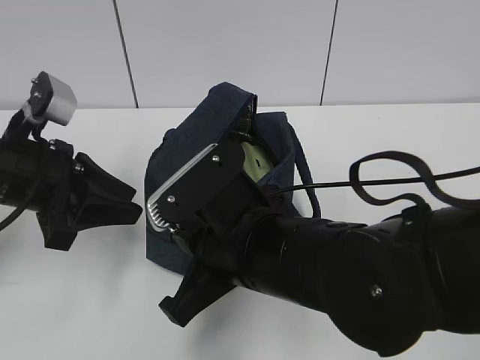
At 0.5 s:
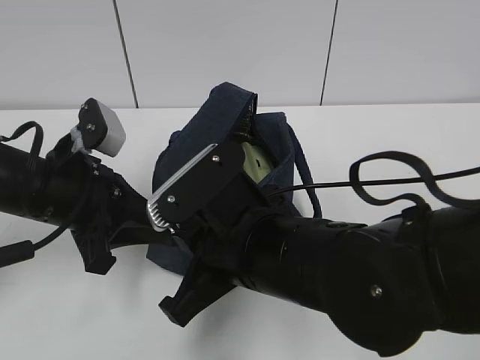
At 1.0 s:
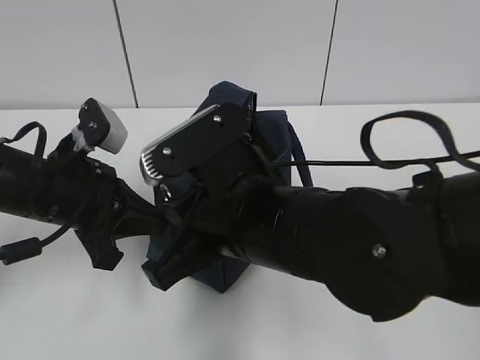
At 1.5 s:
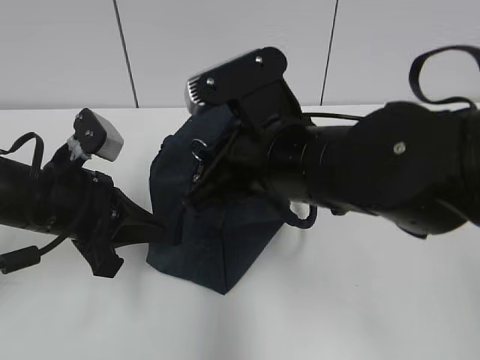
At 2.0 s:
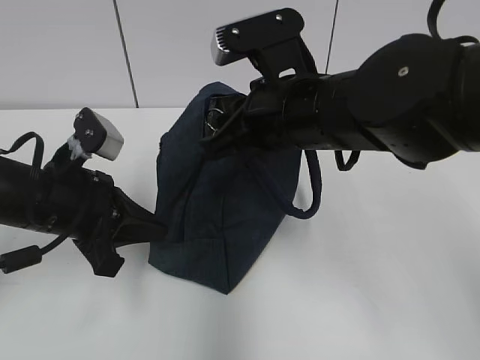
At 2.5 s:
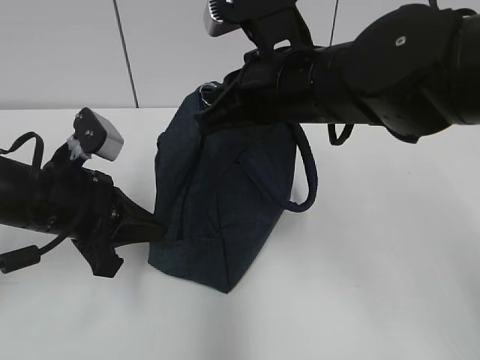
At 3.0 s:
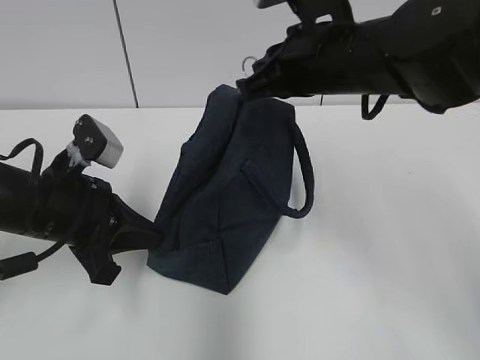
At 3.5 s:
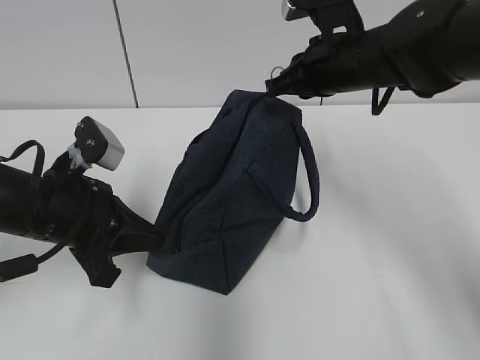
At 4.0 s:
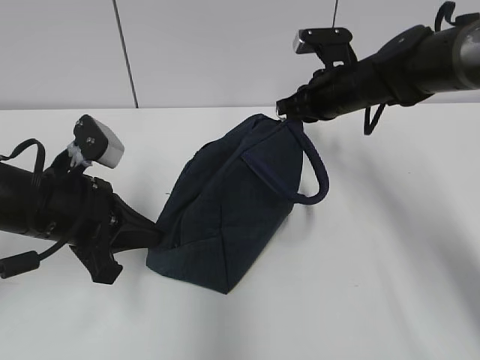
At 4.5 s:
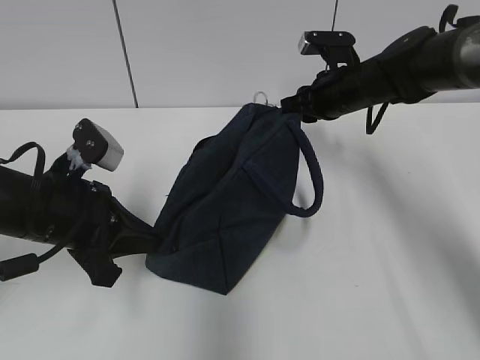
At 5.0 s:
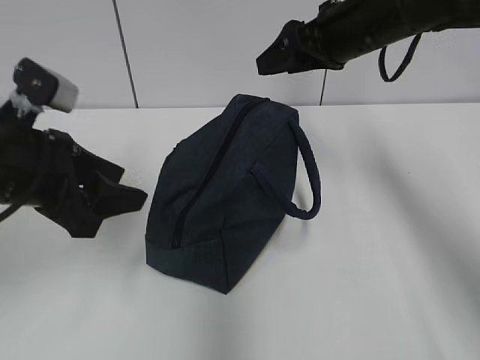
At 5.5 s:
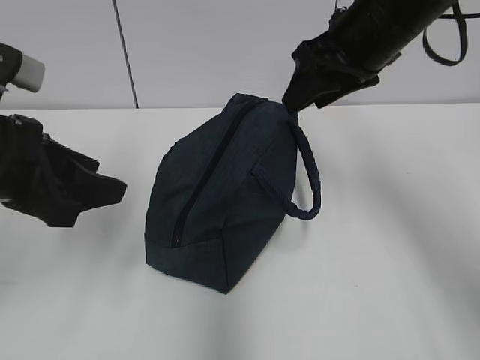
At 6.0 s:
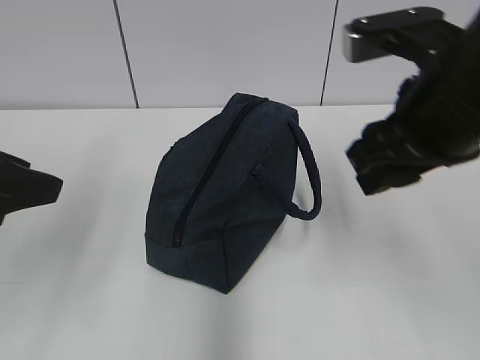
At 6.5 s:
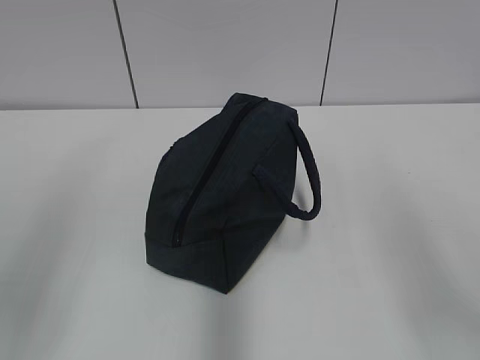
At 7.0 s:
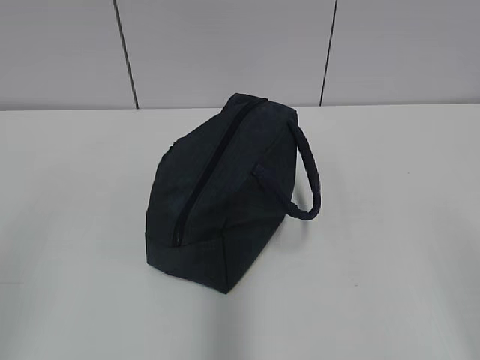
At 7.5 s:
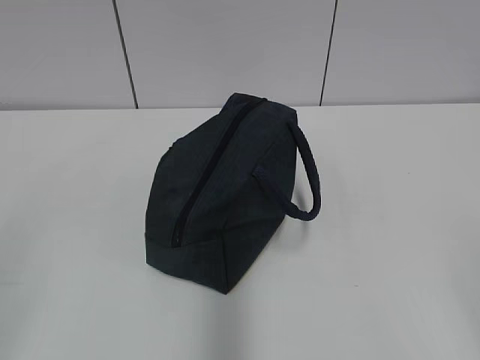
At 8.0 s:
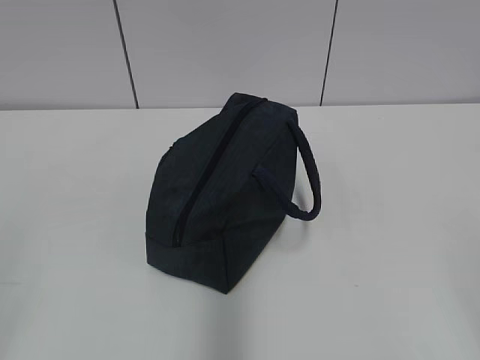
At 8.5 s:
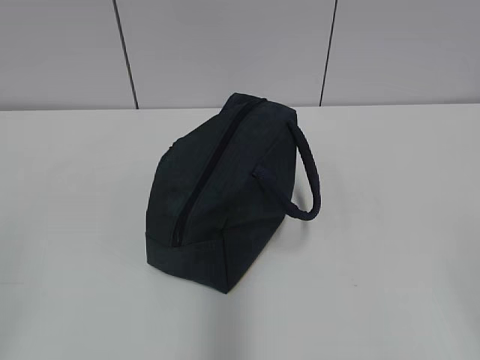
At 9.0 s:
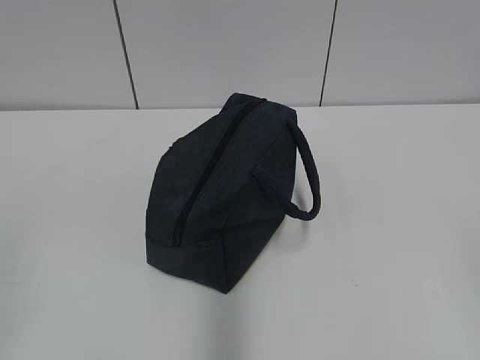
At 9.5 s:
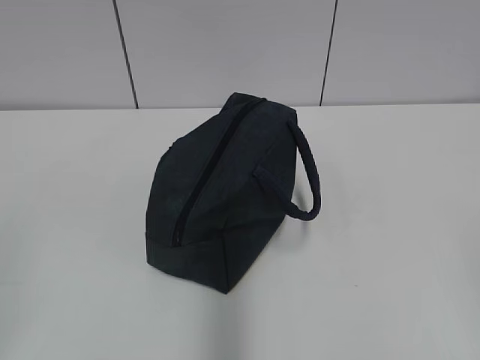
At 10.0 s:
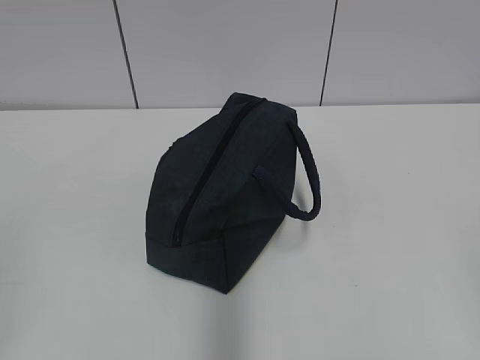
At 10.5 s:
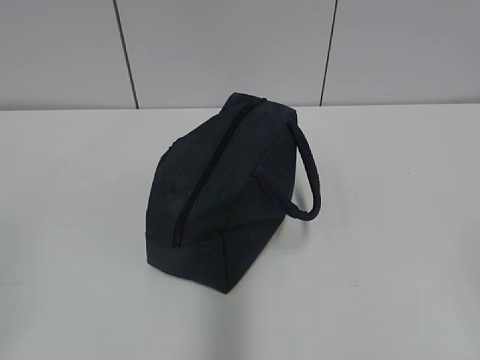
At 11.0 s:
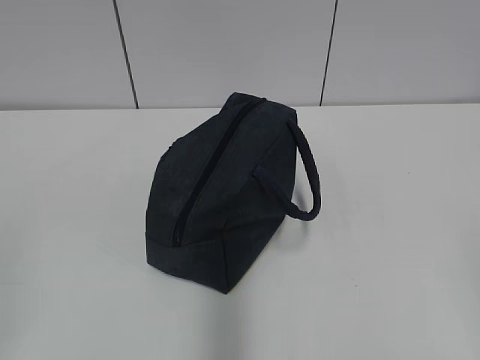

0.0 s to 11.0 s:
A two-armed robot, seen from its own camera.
Step, 1.0 to 4.0 s: Pull the zipper with your right hand.
0.0 to 2.0 s: The right gripper moves forward and upward, approximately 10 cm. Meanwhile the left gripper closes its fingers.
2.0 to 3.5 s: The right gripper travels forward and to the right by about 15 cm.
3.5 to 5.5 s: The grippers both shift upward by about 10 cm. The left gripper opens. The right gripper opens up.
5.5 to 7.5 s: The left gripper shifts roughly 20 cm backward. Meanwhile the right gripper is displaced backward and to the right by approximately 40 cm.
9.0 to 11.0 s: Neither gripper changes place.

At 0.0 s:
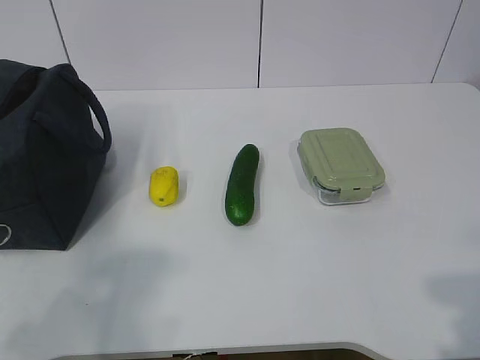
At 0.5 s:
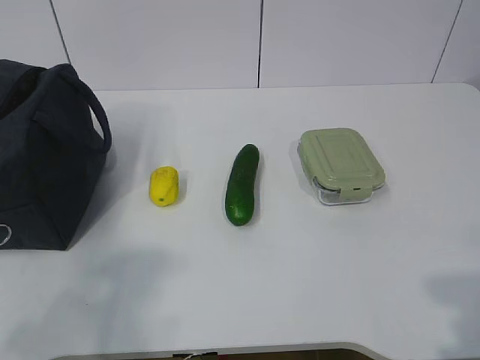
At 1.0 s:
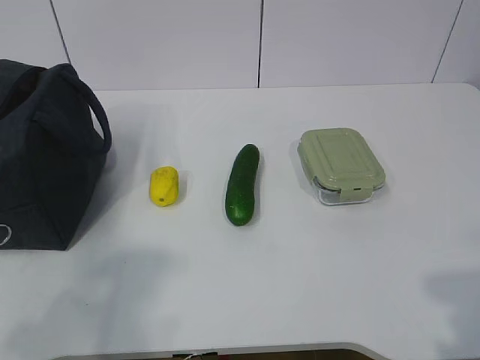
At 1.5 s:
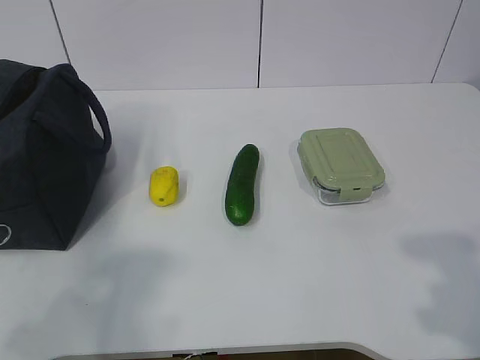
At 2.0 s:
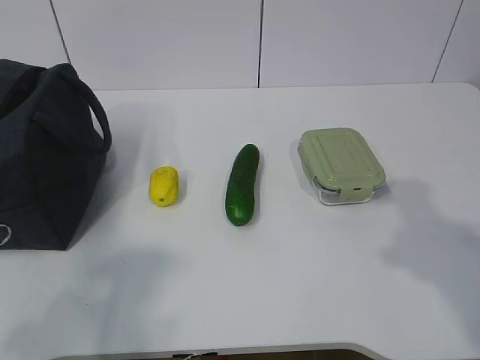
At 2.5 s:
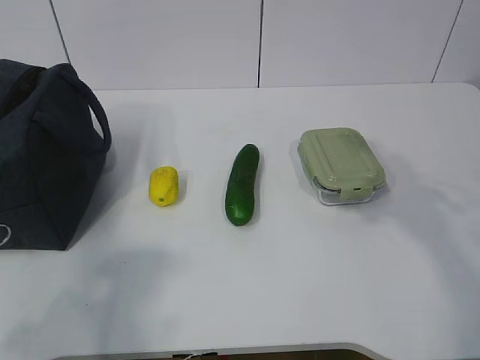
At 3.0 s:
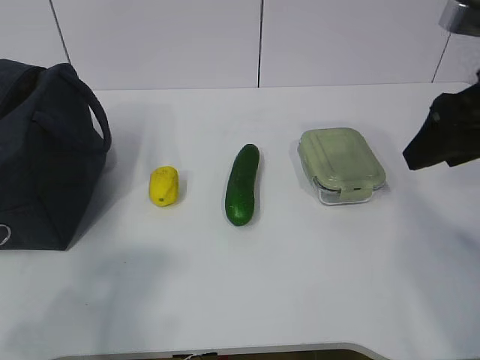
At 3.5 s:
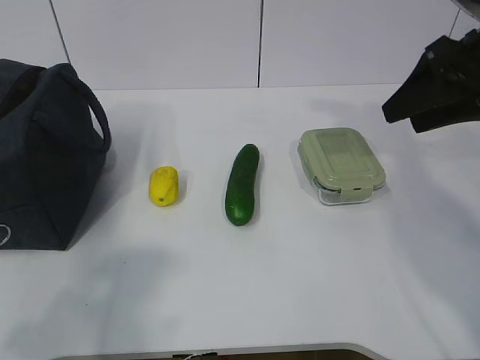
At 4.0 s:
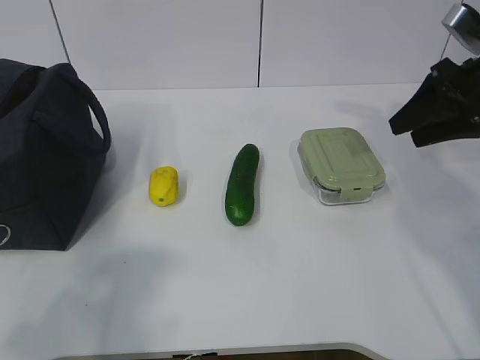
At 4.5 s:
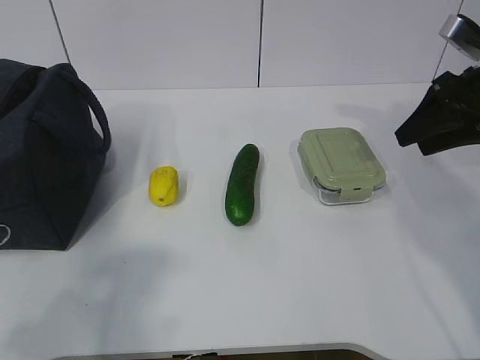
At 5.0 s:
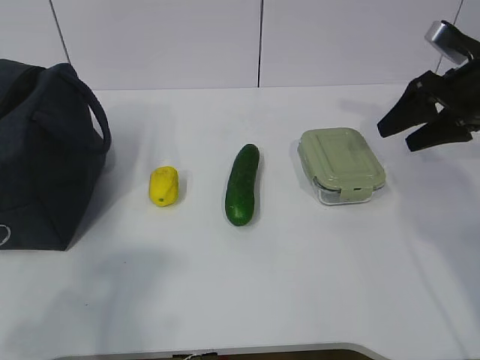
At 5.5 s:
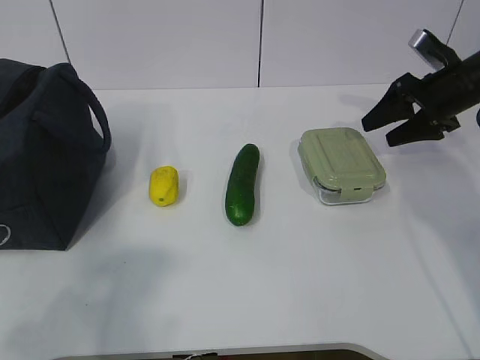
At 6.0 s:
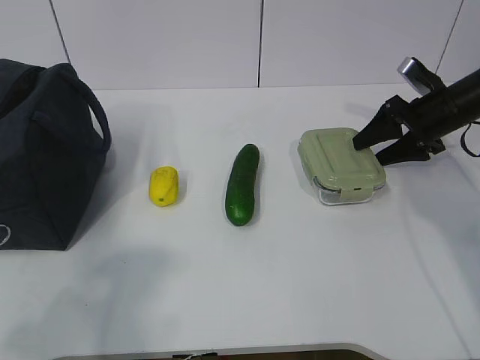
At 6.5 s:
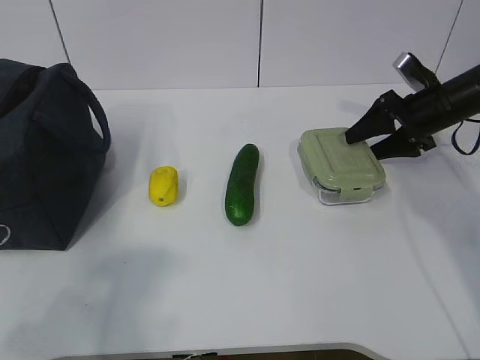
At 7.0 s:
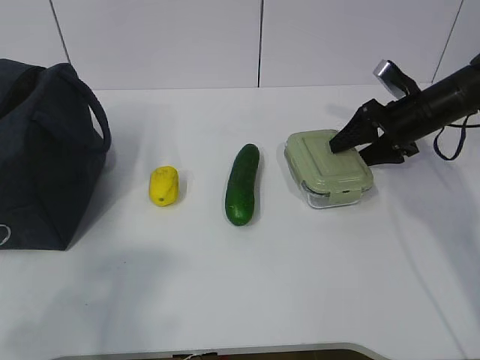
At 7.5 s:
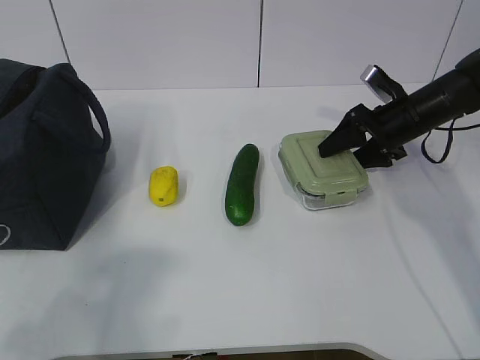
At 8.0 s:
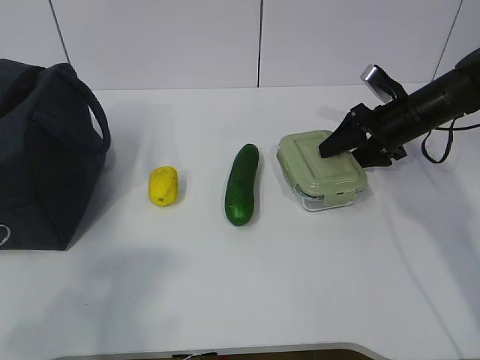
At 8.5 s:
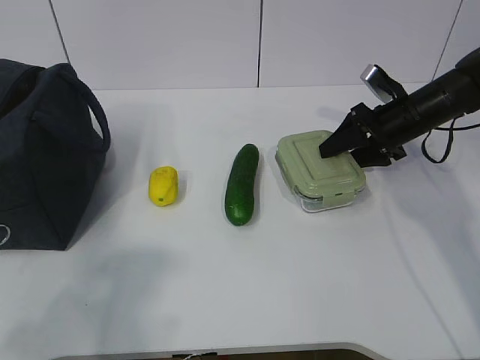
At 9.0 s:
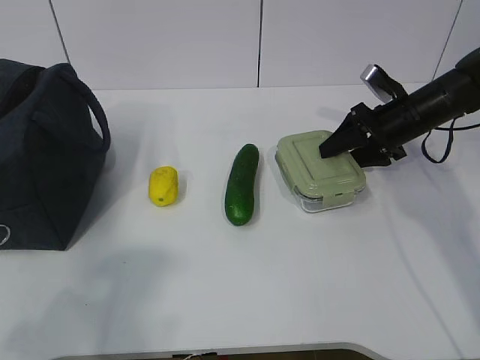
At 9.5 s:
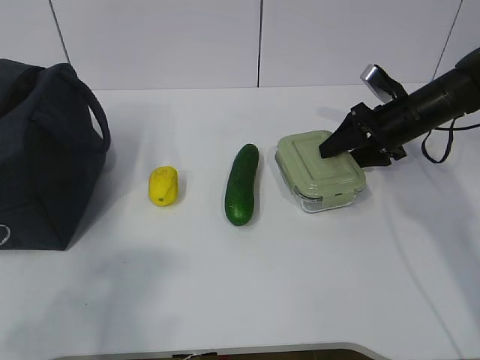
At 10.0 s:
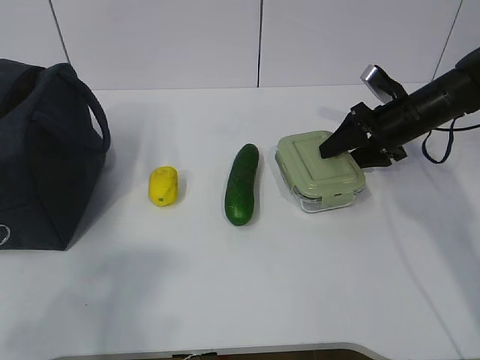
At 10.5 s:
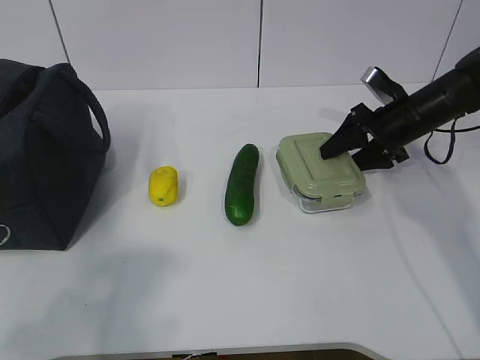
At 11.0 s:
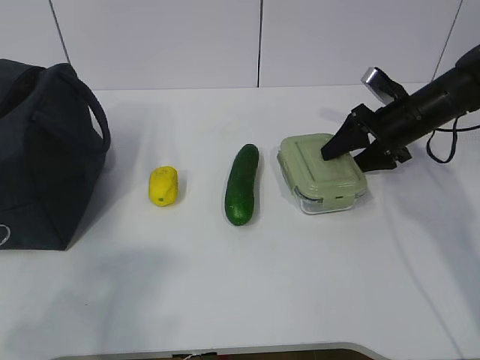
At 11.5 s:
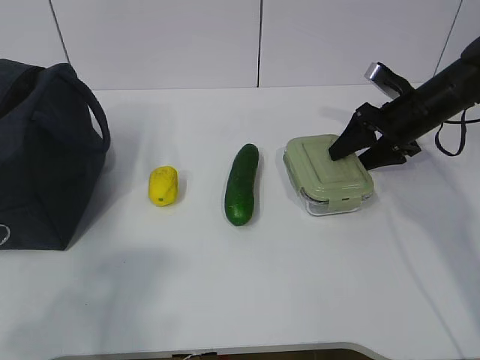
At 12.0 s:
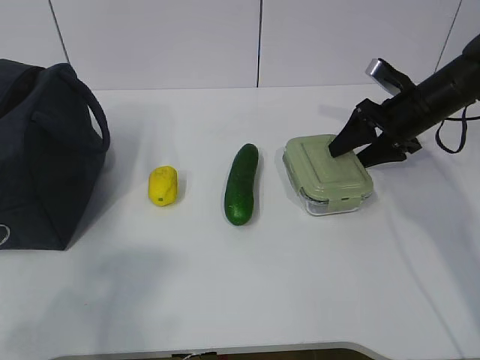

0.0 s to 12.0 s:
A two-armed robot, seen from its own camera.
2.0 to 4.0 s: The right gripper moves forward, about 25 cm.
4.0 to 6.0 s: The right gripper heads downward and forward, covering about 15 cm.
6.0 to 8.0 s: The right gripper ends up some 5 cm from where it was.
8.0 to 10.0 s: Both grippers stay put.
10.0 to 12.0 s: There are only small adjustments of the grippers.

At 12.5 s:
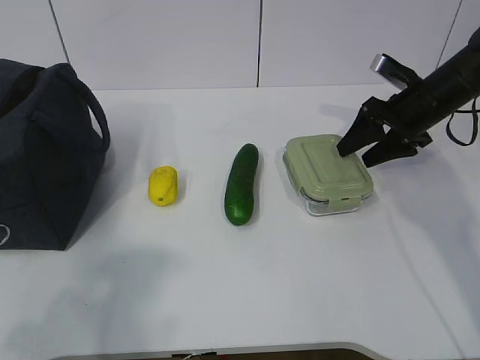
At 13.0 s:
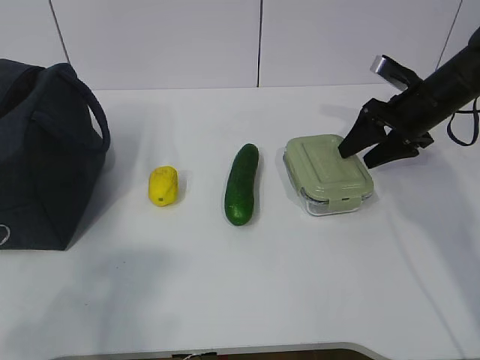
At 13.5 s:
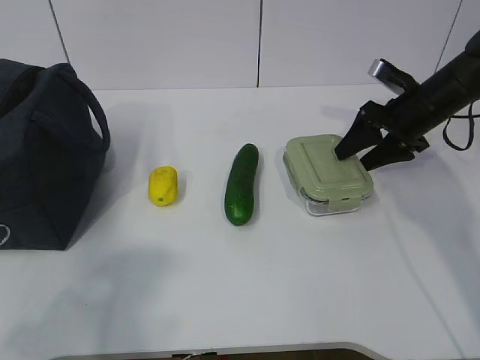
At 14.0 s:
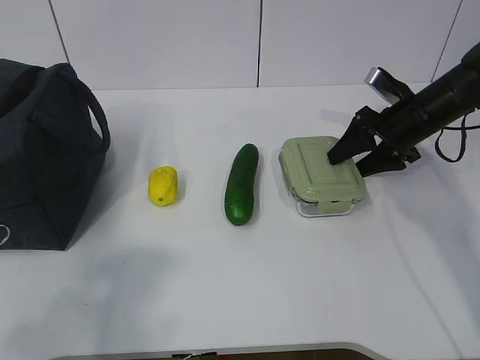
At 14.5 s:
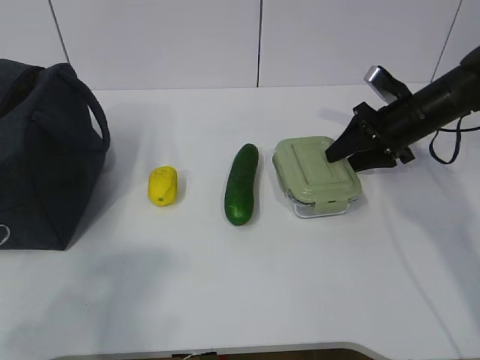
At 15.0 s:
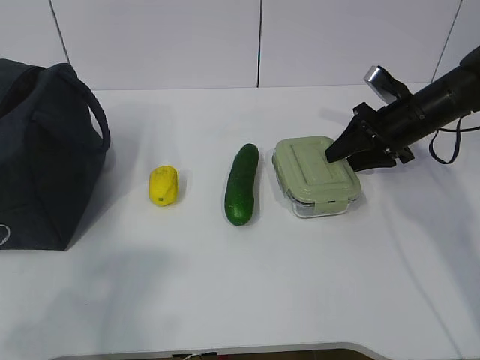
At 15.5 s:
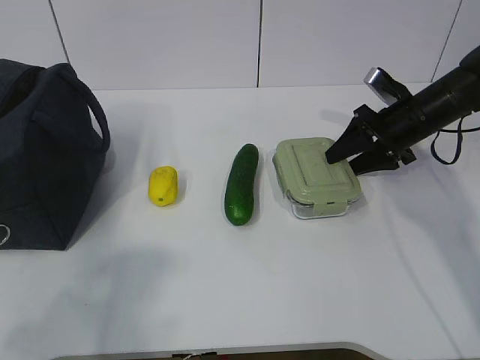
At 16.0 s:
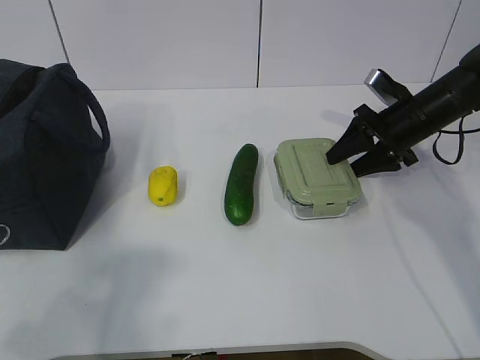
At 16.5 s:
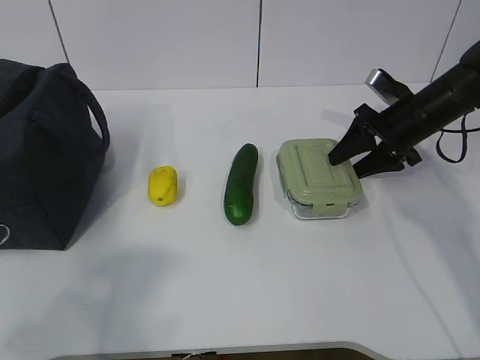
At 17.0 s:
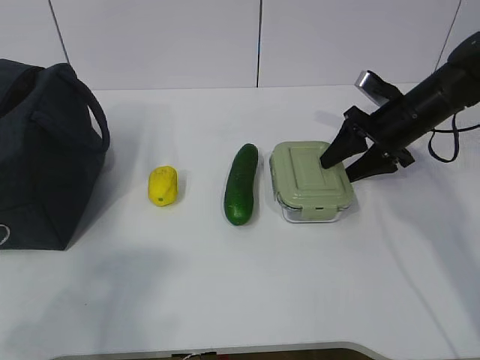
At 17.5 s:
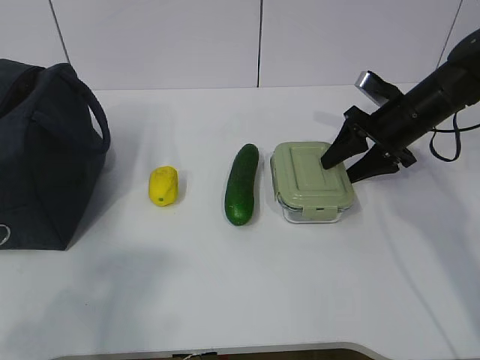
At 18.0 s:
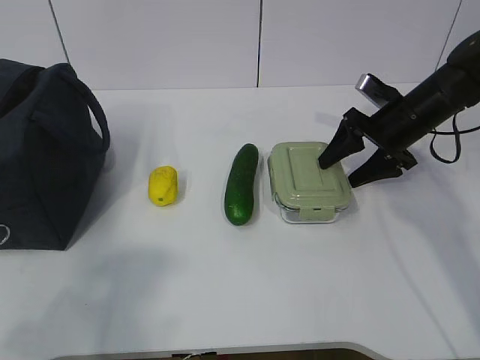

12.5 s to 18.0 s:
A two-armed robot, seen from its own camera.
12.5 to 14.5 s: The grippers move only a little.
14.5 to 16.0 s: Both grippers stay about where they are.
16.0 to 18.0 s: The grippers move only a little.
